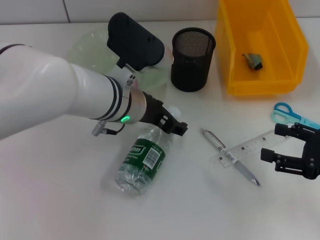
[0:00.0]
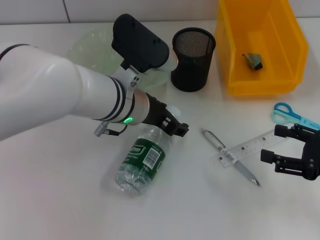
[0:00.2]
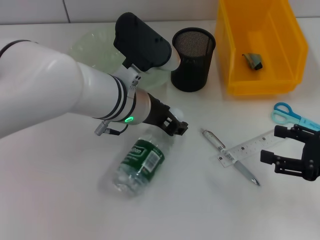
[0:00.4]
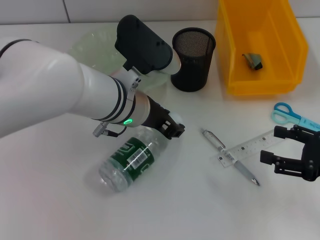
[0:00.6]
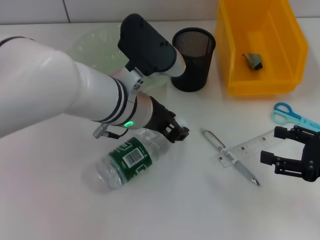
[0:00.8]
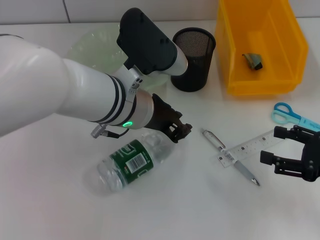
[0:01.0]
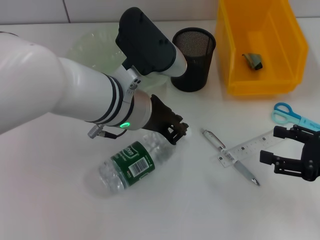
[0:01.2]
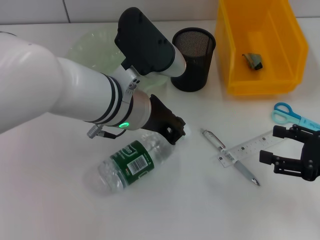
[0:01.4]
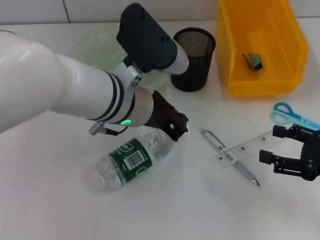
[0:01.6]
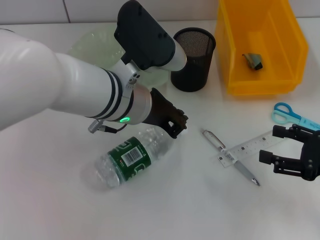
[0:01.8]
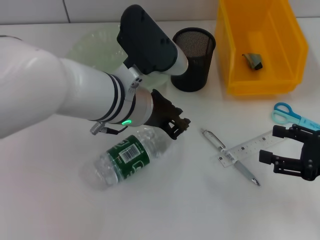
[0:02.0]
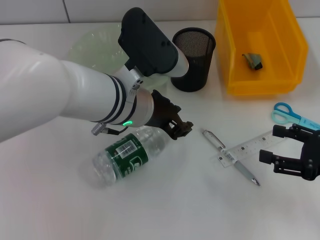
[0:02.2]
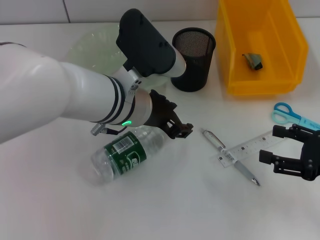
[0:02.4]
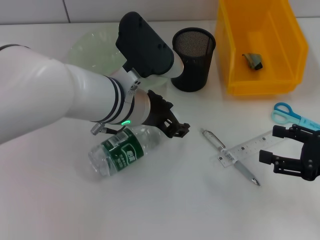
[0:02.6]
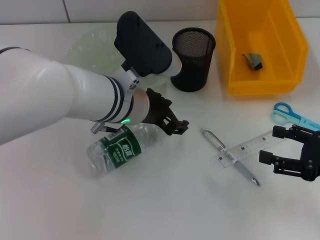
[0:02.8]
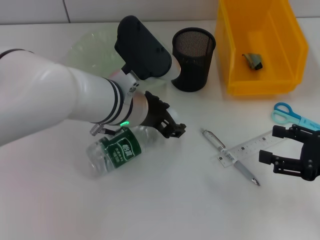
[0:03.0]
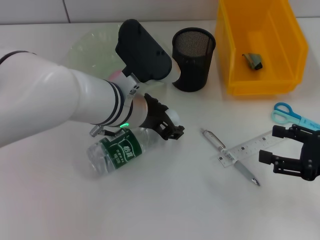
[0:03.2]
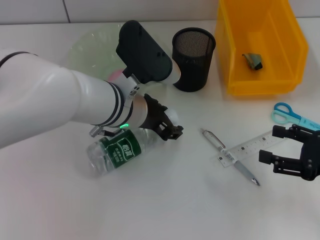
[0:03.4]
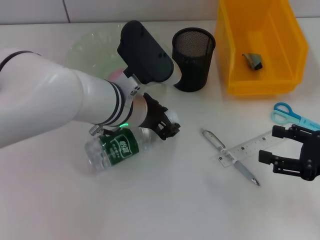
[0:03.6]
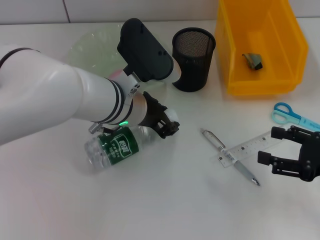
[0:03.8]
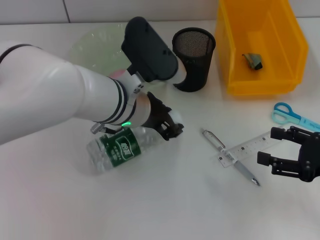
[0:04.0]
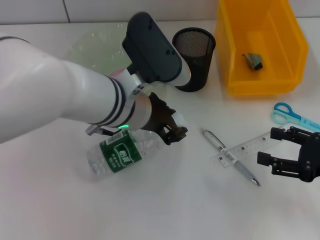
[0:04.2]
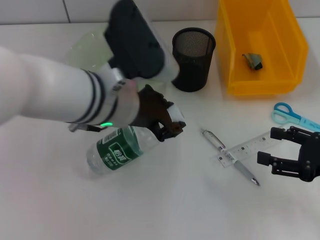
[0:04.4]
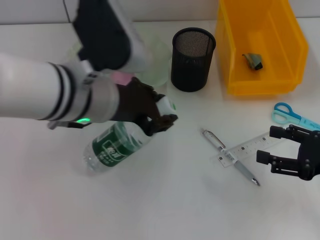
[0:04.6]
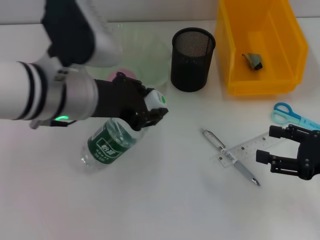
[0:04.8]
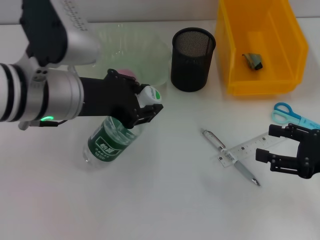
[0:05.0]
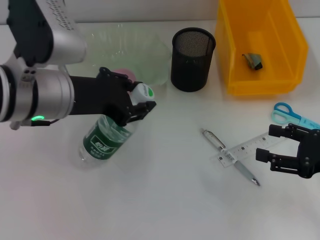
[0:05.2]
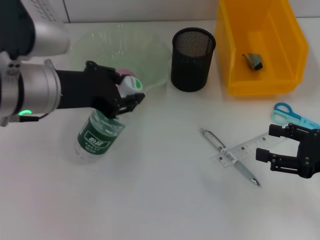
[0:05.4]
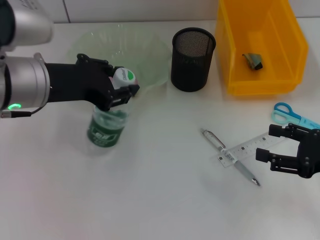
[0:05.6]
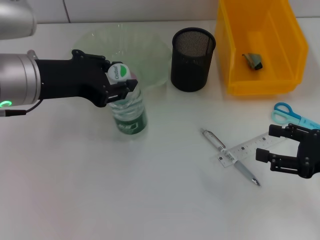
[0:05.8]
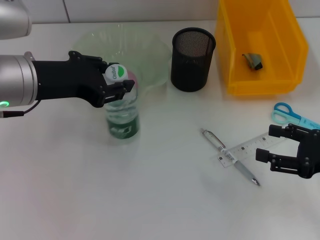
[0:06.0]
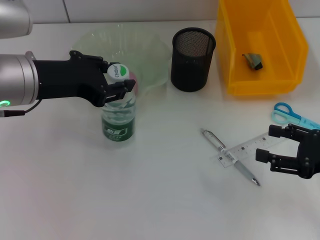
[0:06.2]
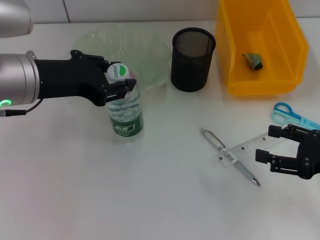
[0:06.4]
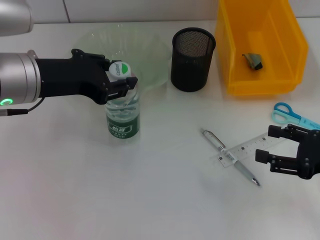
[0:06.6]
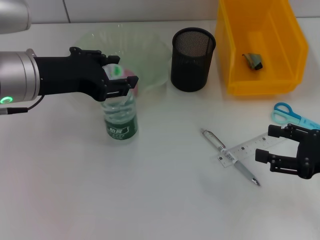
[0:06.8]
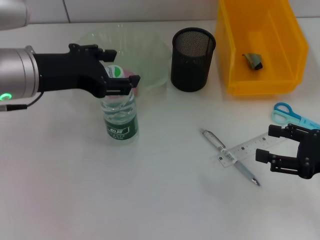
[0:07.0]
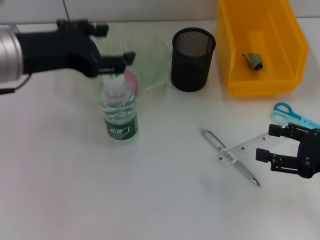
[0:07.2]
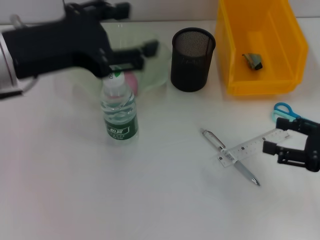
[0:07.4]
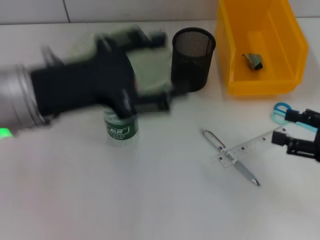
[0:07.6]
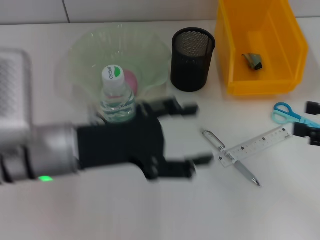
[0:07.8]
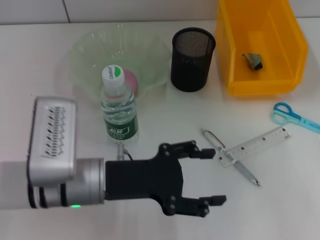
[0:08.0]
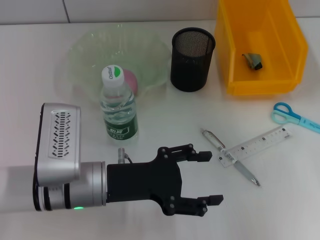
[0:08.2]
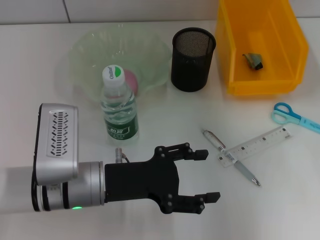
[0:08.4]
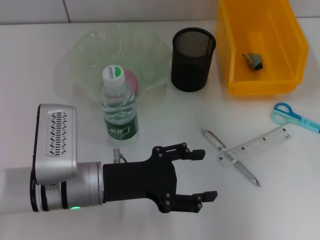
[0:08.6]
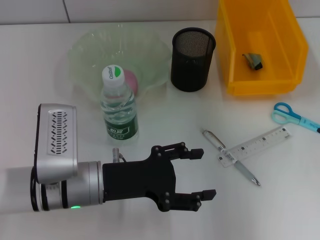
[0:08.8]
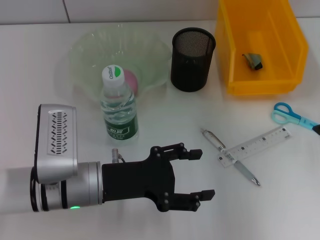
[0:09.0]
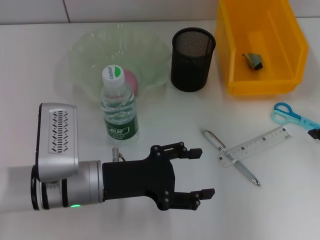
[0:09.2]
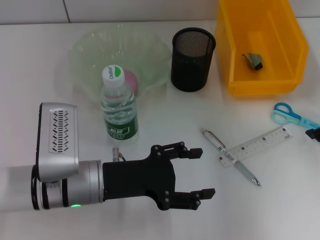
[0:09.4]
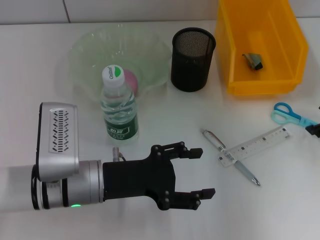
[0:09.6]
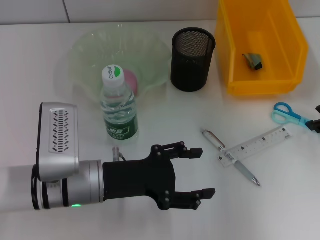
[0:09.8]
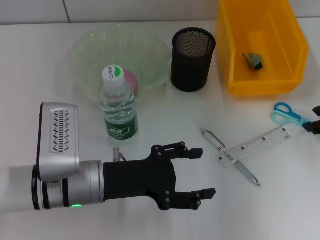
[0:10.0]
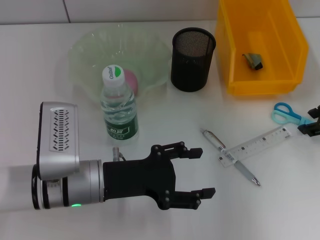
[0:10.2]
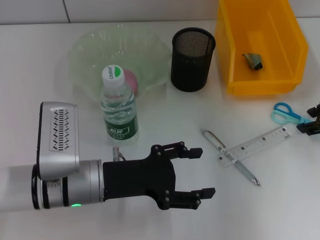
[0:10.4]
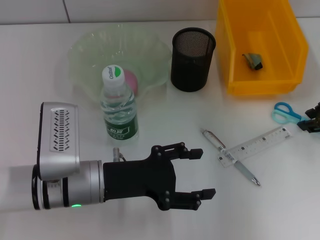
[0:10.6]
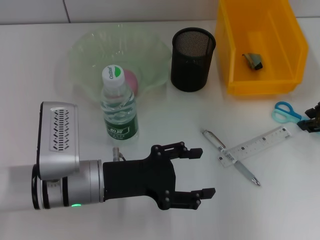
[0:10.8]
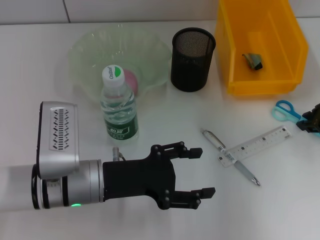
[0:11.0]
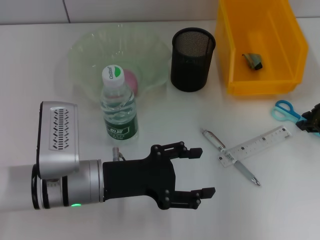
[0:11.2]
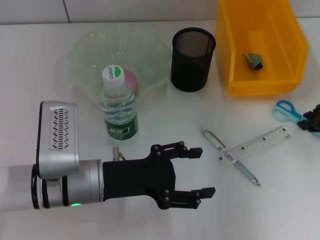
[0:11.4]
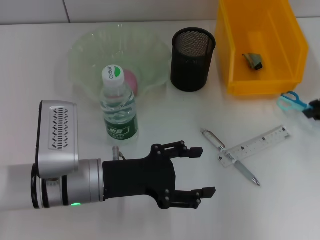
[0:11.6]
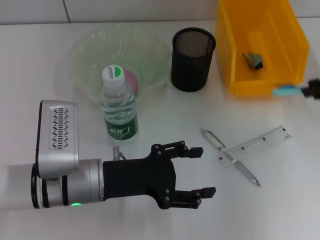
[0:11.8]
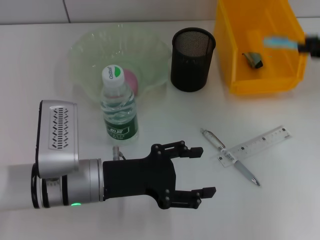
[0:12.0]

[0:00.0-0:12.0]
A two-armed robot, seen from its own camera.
Step, 0:00.0 to 0:03.8: Grab the water bottle with the left hand.
Step, 0:04.0 to 0:06.8: Place the water bottle on the table with the left hand.
Step, 0:07.0 to 0:11.2: Grab the blue scissors with the right hand.
0:00.0 to 0:01.6: The left gripper closes up.
0:01.6 to 0:03.0: The left gripper opens its fingers.
0:03.0 to 0:04.4: The left gripper heads upward, covering some 5 cm.
0:04.4 to 0:06.0: The left gripper travels to the left by some 10 cm.
0:06.0 to 0:07.6: The left gripper opens.
0:07.6 to 0:09.0: The right gripper heads forward and upward, covering some 10 cm, while the left gripper goes about 15 cm downward.
0:09.0 to 0:10.4: The right gripper closes its fingers.
0:10.4 to 0:12.0: The right gripper shifts roughly 10 cm upward, and closes.

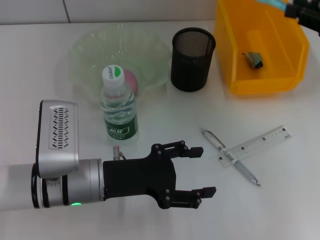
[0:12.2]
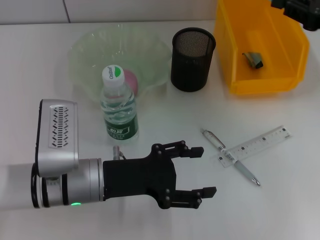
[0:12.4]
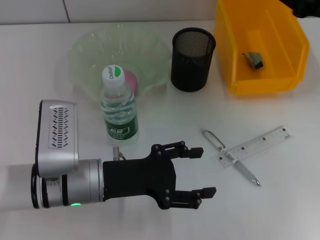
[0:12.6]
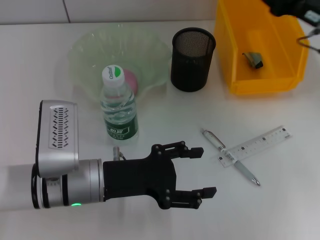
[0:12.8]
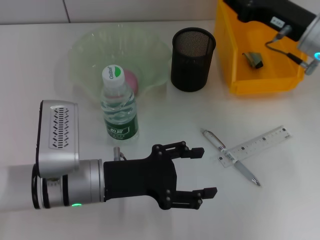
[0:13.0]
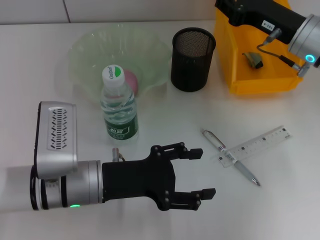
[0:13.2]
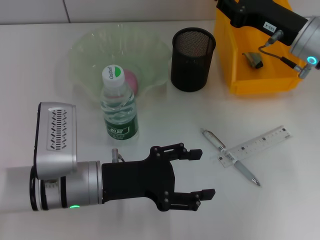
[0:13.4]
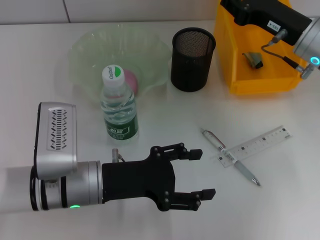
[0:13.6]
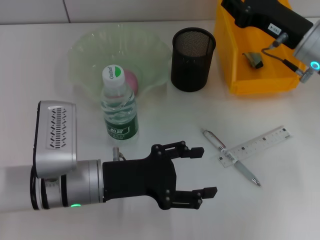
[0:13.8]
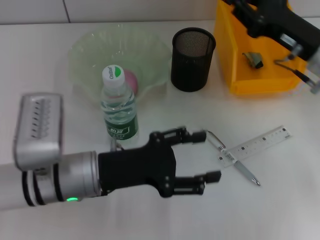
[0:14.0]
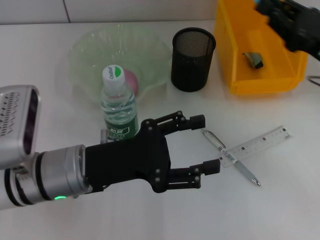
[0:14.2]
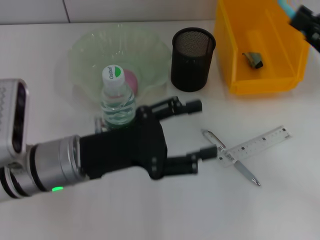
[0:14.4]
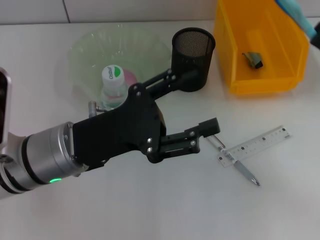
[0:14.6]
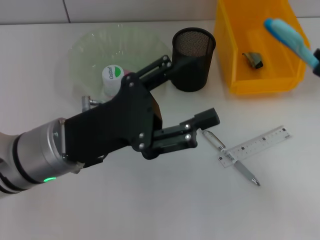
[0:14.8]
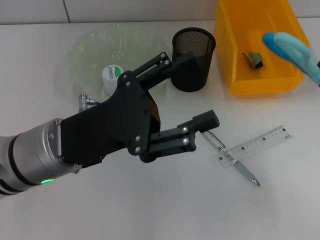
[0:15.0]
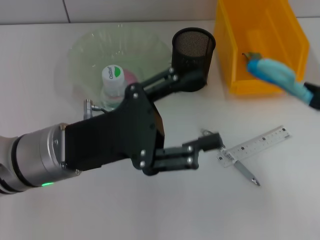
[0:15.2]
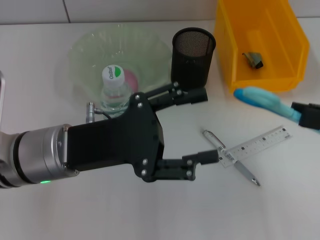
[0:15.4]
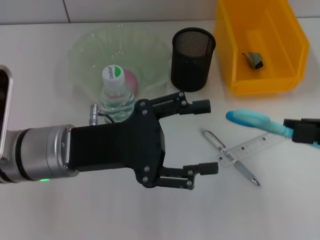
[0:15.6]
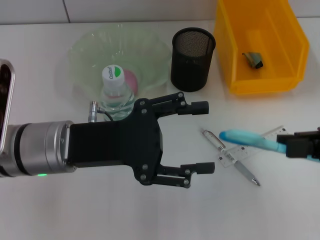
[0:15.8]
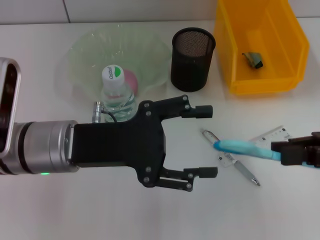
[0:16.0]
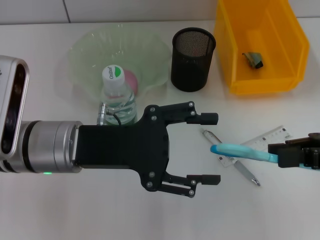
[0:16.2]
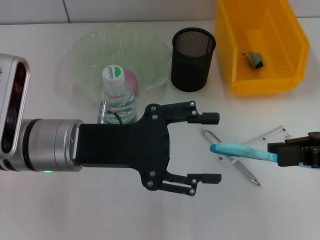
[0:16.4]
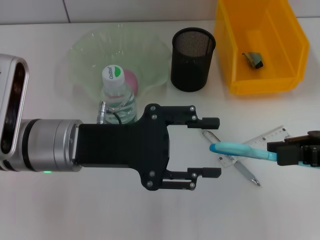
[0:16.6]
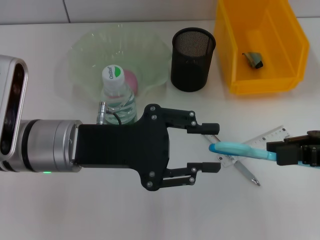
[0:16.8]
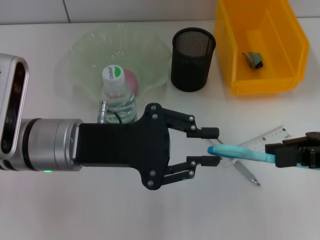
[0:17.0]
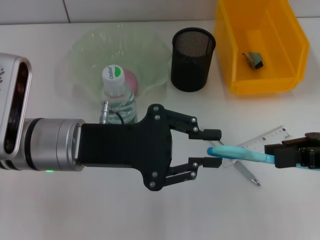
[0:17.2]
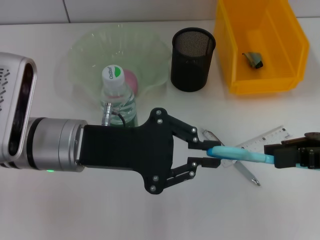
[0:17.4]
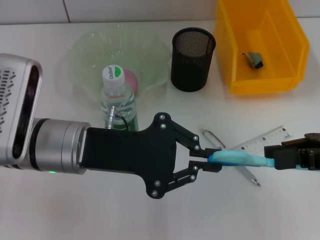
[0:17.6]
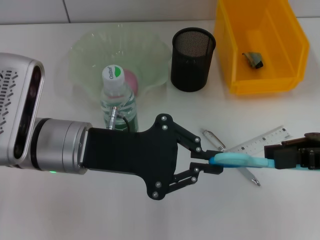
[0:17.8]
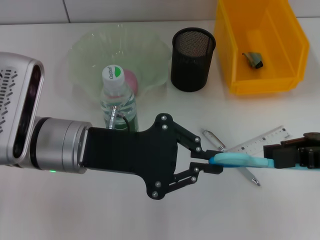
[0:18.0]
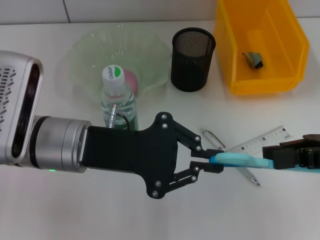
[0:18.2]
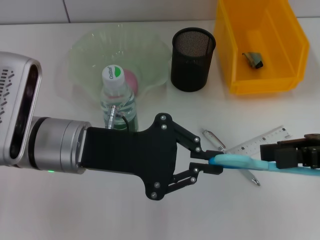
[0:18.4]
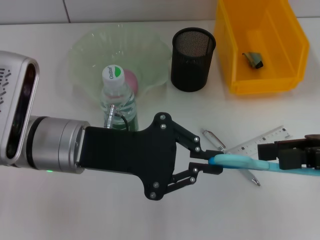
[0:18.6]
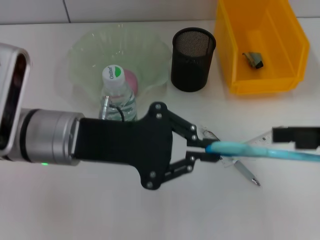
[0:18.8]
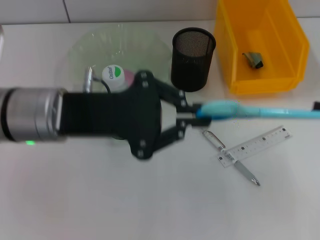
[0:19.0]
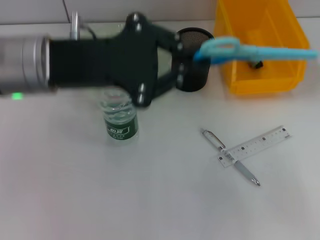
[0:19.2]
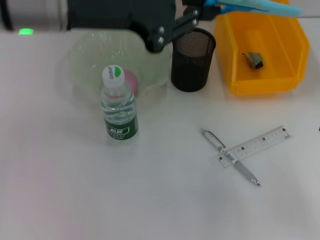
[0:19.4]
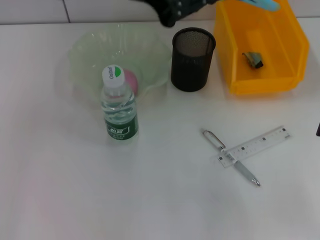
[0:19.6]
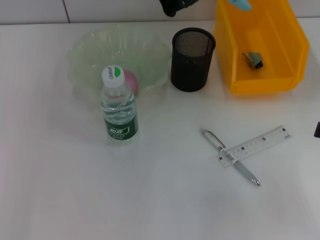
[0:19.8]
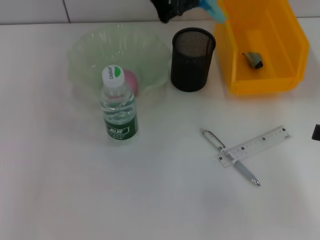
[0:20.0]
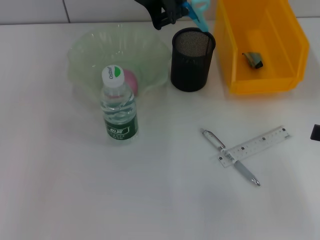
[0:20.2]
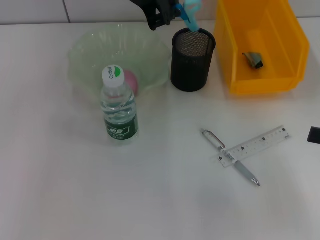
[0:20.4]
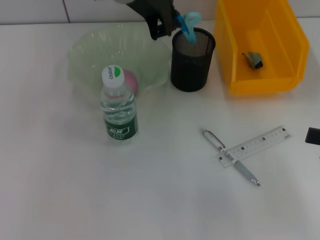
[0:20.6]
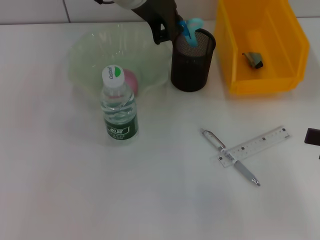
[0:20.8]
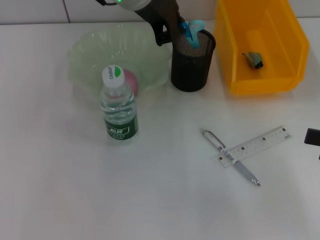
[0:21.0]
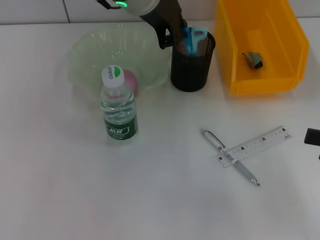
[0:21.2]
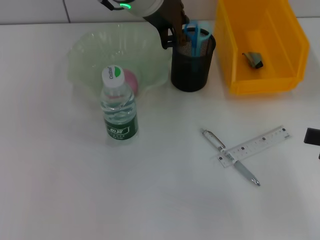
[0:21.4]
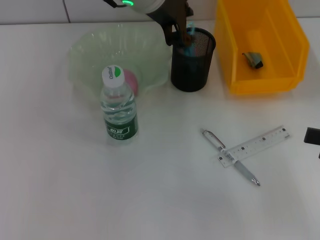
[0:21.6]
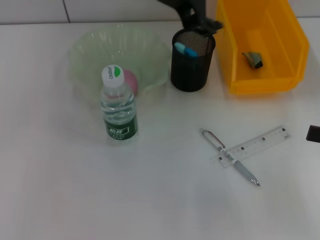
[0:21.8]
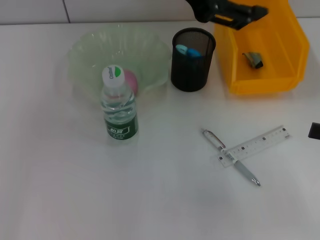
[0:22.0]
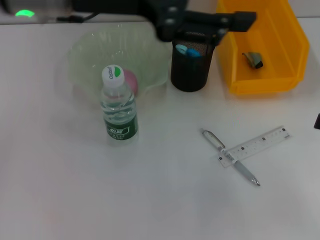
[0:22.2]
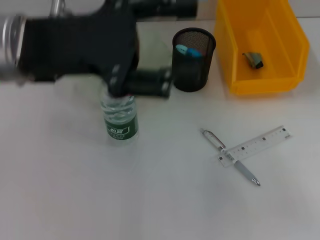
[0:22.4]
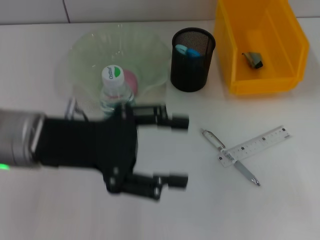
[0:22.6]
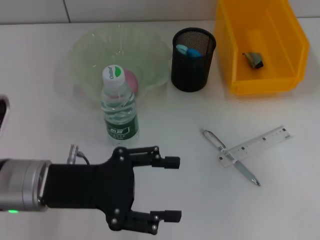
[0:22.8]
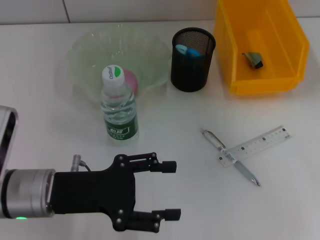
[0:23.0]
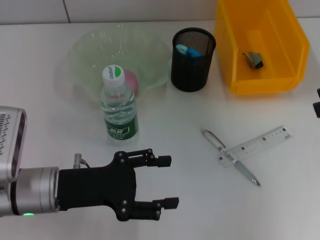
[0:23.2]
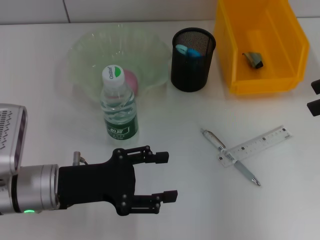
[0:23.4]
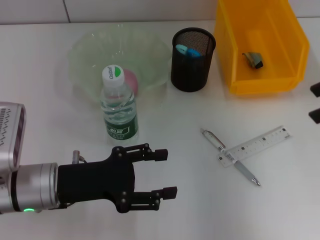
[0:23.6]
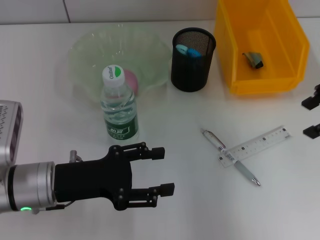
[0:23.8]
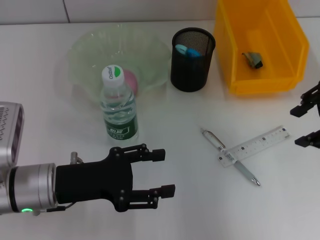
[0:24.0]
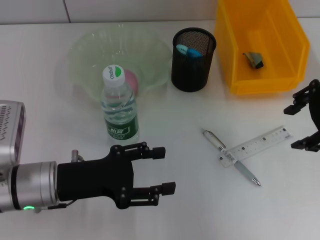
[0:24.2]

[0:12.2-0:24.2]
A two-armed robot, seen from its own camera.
Step, 0:12.2 to 0:18.8: Pass the blue scissors from the right hand to the left hand.
Step, 0:19.0 to 0:21.6: Place the blue scissors into the pen holder with the left hand.
0:12.2 to 0:13.8: The right gripper goes about 10 cm to the left and downward.
0:13.8 to 0:15.2: The left gripper travels upward by about 5 cm, while the right gripper moves backward and to the right, approximately 15 cm.
0:16.6 to 0:18.2: The left gripper closes.
0:18.2 to 0:19.8: The left gripper goes roughly 20 cm upward and forward. Meanwhile the right gripper moves to the right and backward, about 10 cm, and opens up.
0:19.8 to 0:21.2: The left gripper shifts by approximately 5 cm.
0:21.2 to 0:22.6: The right gripper moves approximately 5 cm. The left gripper moves to the left, backward and downward, about 25 cm, and opens up.
0:22.6 to 0:24.2: The right gripper goes about 15 cm to the left and forward; the left gripper moves downward, roughly 10 cm.
